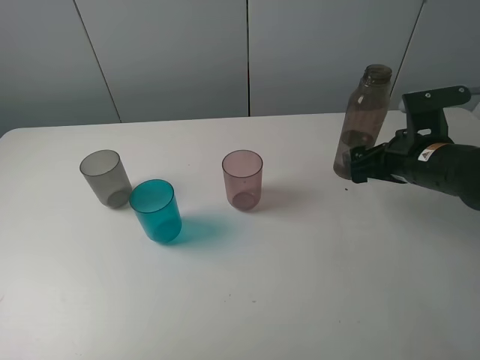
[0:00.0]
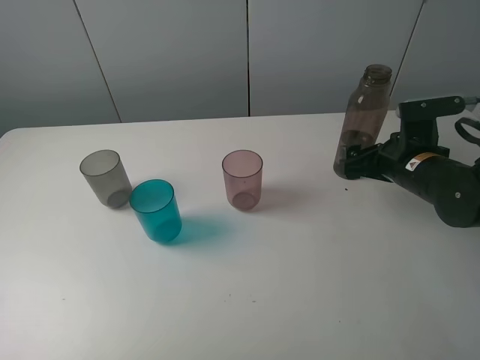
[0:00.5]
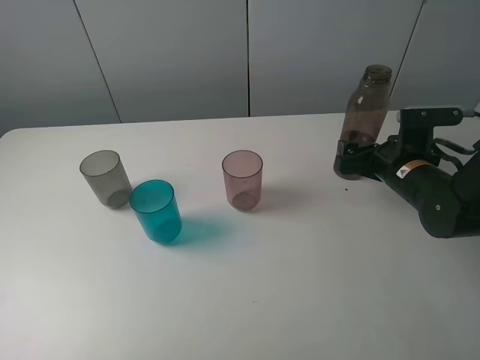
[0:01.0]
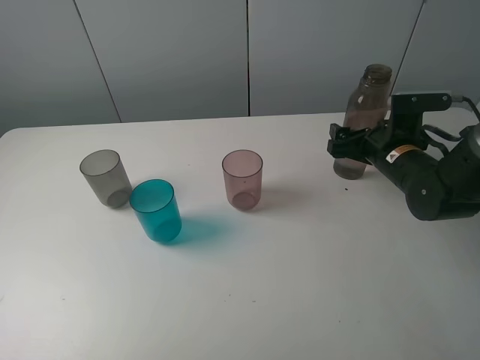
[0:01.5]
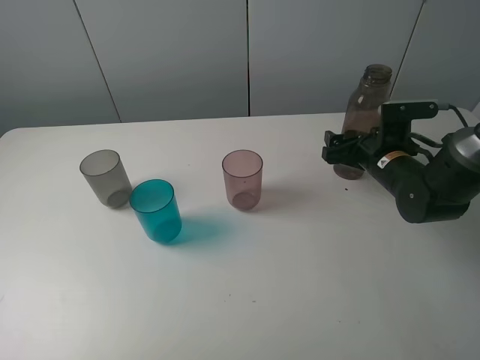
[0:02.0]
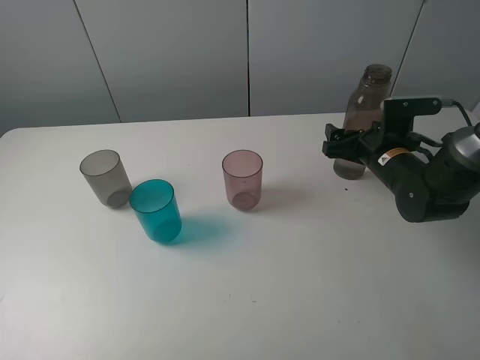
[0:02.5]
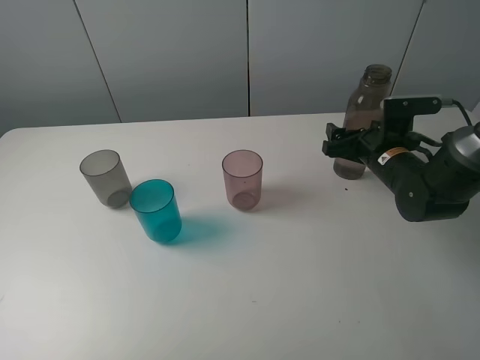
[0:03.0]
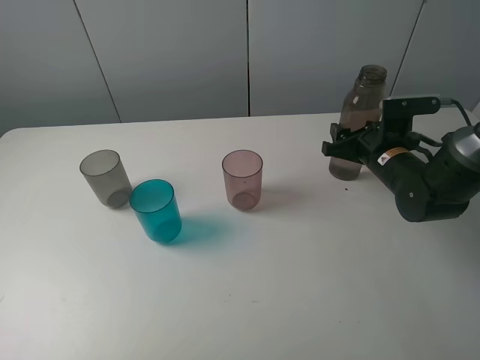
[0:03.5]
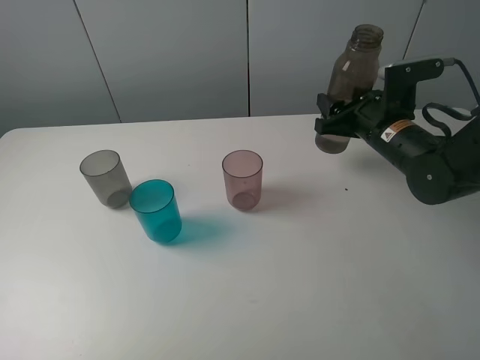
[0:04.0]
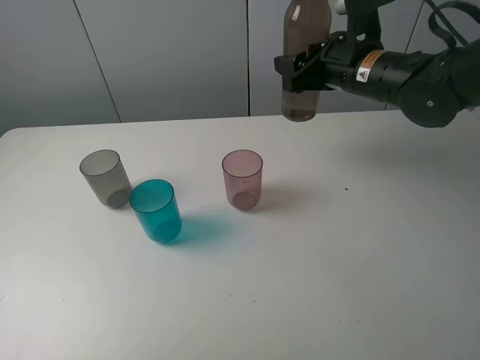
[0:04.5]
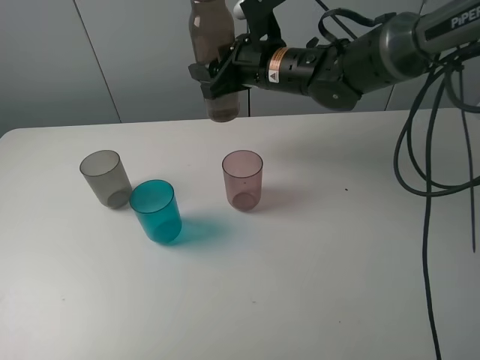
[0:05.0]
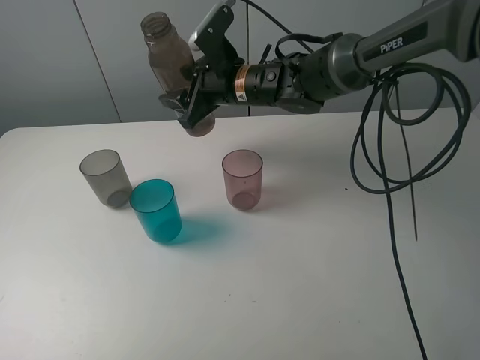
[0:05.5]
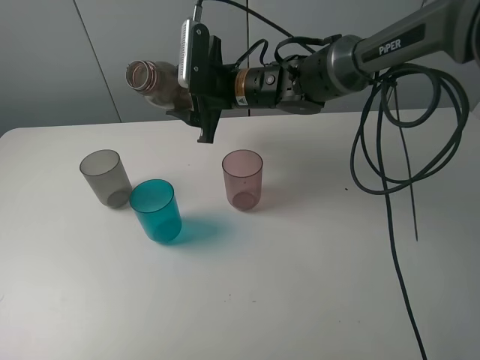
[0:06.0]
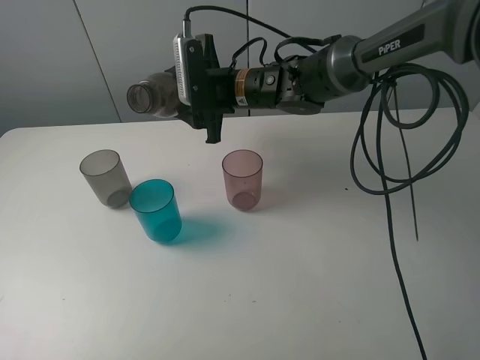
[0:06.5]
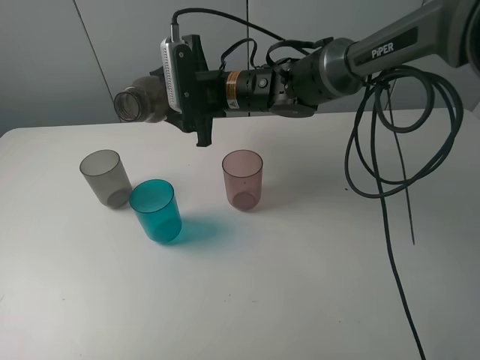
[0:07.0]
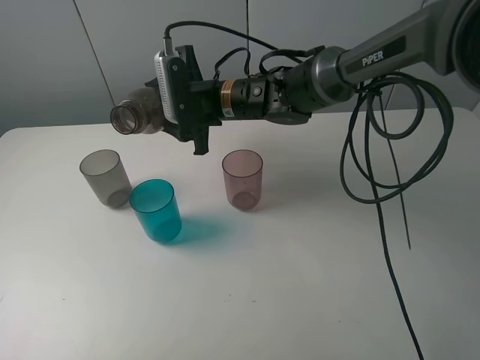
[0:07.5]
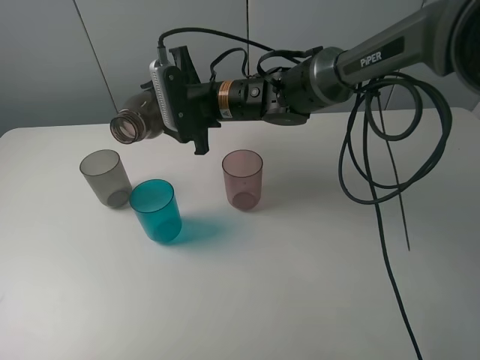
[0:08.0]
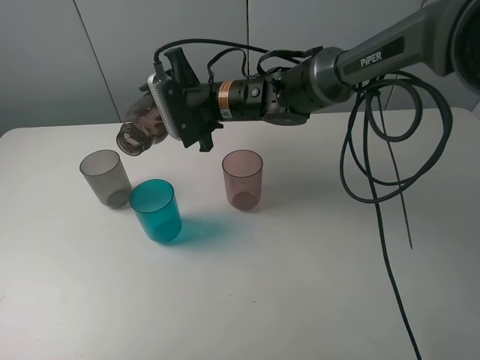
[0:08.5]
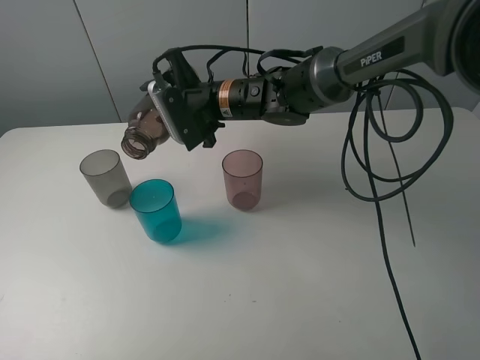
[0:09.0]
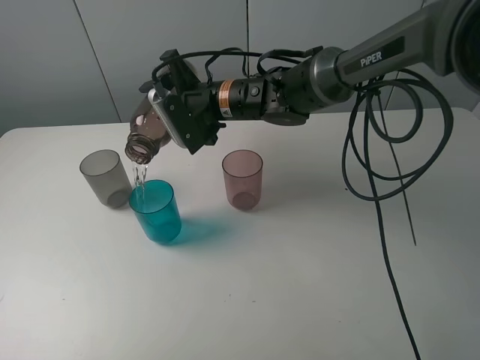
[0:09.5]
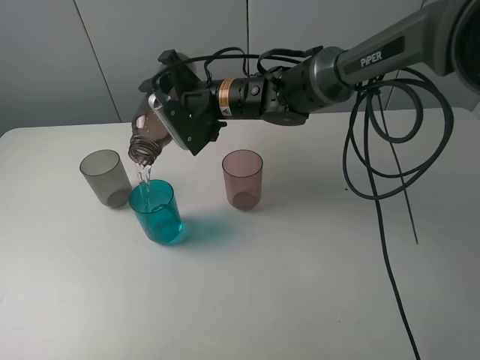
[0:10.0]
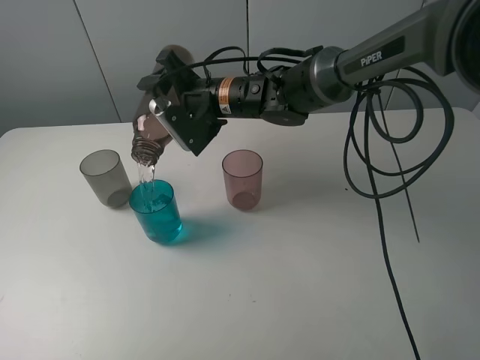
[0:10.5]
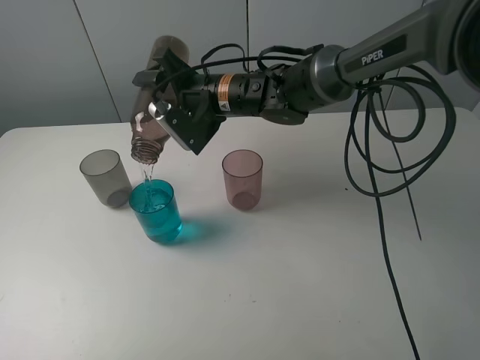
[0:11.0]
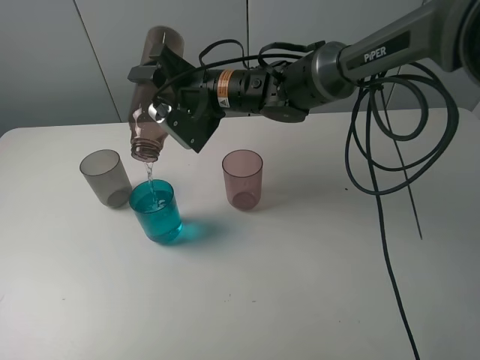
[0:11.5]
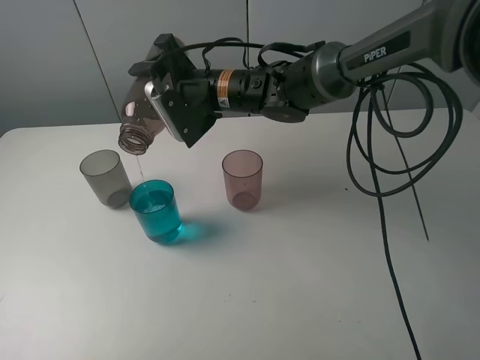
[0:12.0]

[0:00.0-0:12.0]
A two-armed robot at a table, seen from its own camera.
Task of the whole recording: pick up the bottle filled with water and pour water into the middle cup of the three cups.
Step, 0:00.0 to 0:03.5: Grasp the brown bottle with the right gripper.
0:00.0 to 0:02.0: The right gripper shifts roughly 10 cm forward and downward.
0:02.0 to 0:04.0: The right gripper travels upward by approximately 5 cm, and closes its fingers.
0:04.0 to 0:06.0: The right gripper goes about 20 cm to the left.
0:10.0 to 0:12.0: The grippers make only small movements.

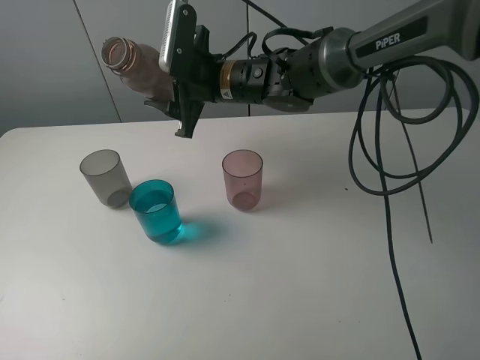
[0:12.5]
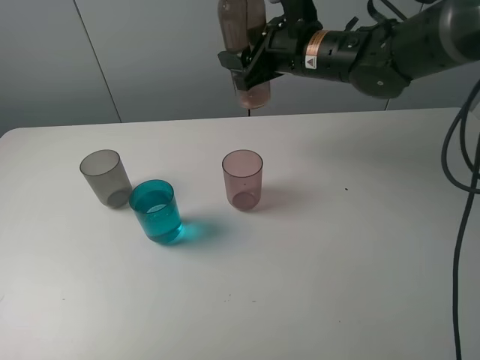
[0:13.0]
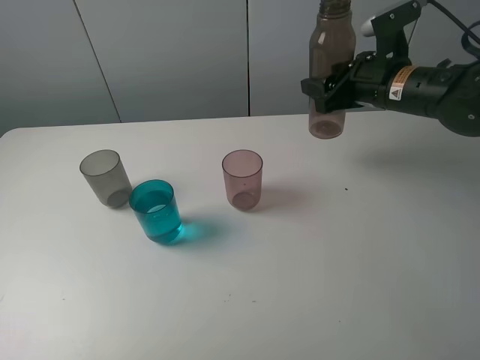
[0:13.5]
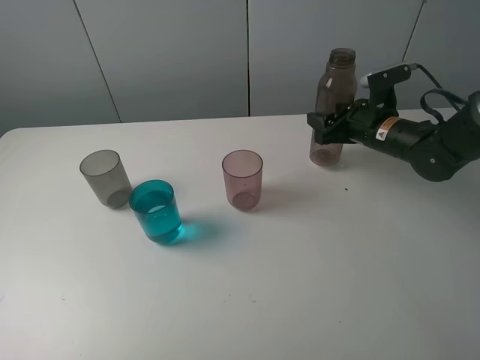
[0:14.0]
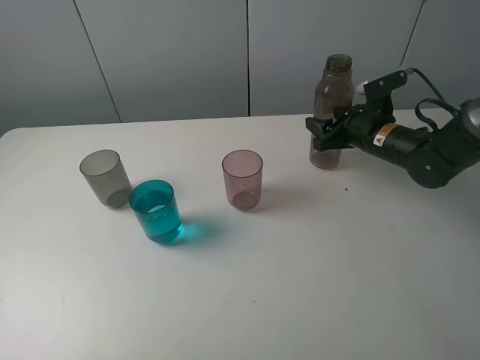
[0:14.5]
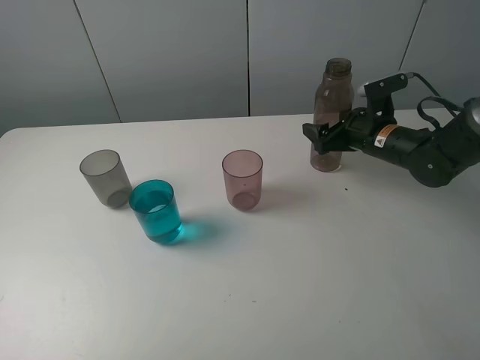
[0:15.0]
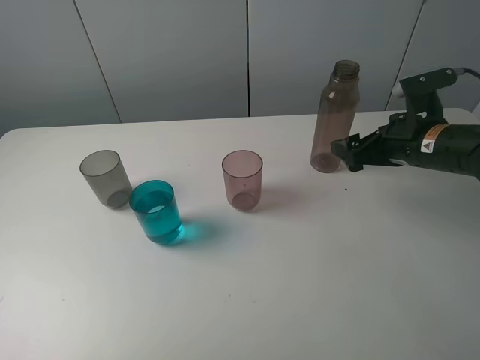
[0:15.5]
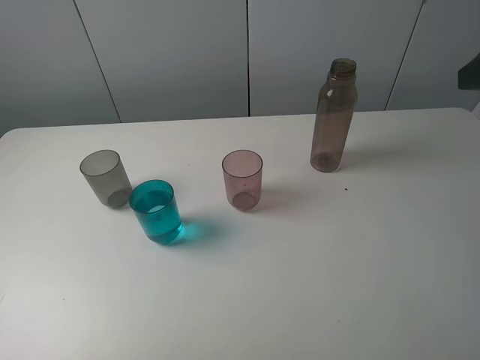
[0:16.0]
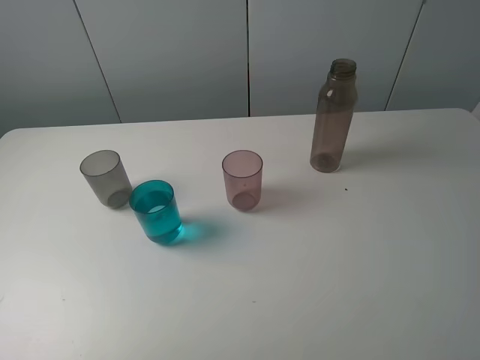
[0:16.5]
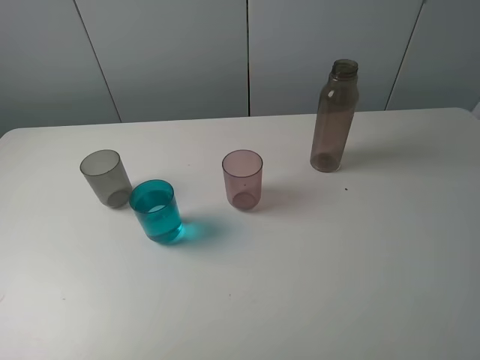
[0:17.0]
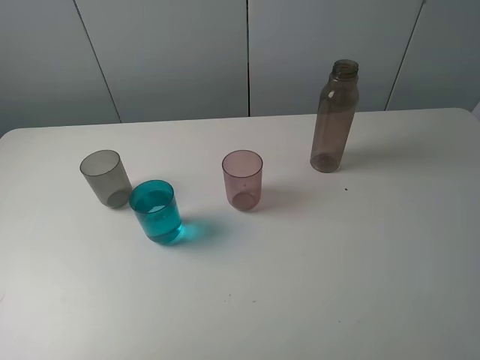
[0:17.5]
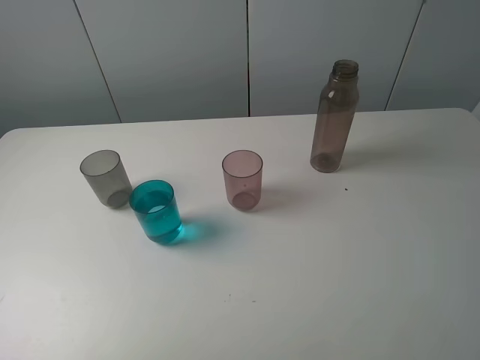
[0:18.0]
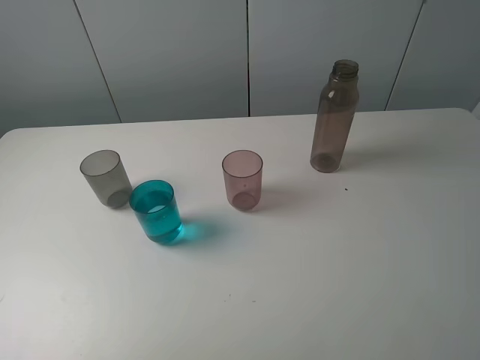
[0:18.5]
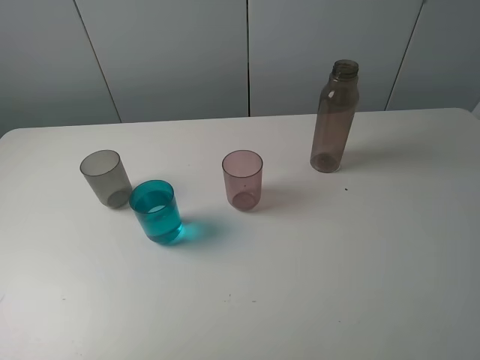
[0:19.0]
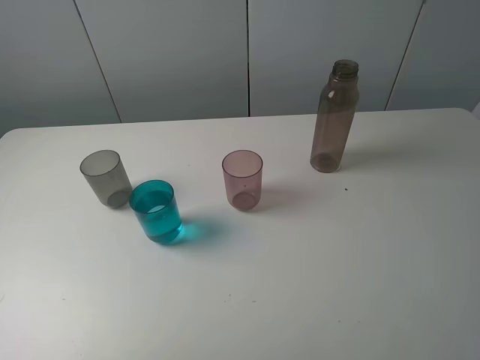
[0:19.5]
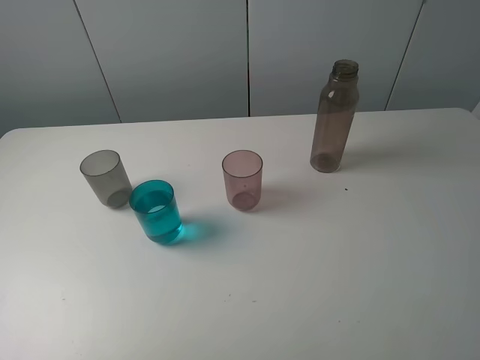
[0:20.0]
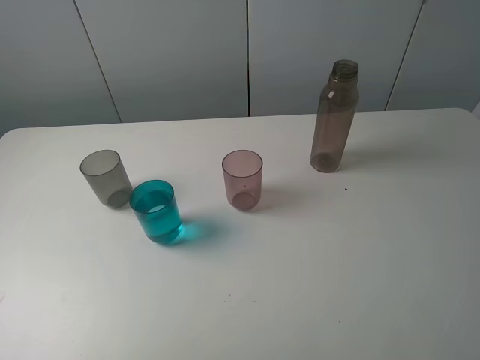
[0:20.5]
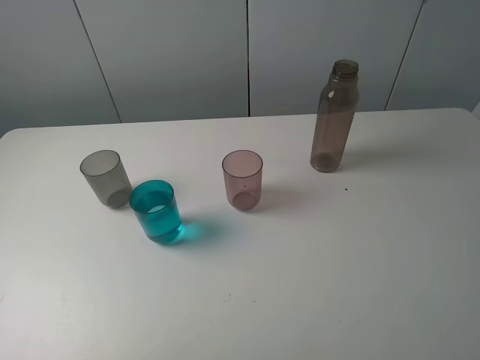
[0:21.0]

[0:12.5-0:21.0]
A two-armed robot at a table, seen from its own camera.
Task of the whole recording: pick up the bottle filled with water and pour water into the middle cup of the three cups.
Step, 0:12.5 to 0:15.5: Place the brown bottle with the right gripper.
0:12.5 to 0:14.5: The right gripper travels to the right and downward by approximately 25 cm.
0:14.5 to 0:16.5: The right gripper shifts about 40 cm backward and upward, and opens up.
0:19.0 to 0:21.0: Neither gripper changes place.
